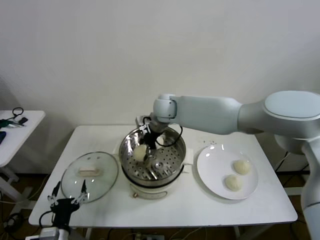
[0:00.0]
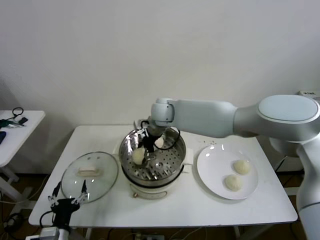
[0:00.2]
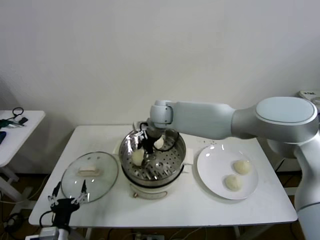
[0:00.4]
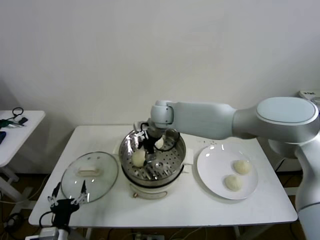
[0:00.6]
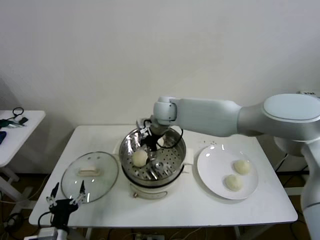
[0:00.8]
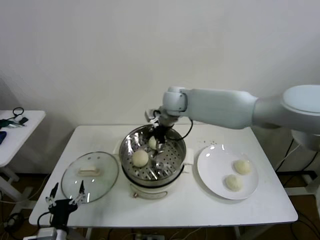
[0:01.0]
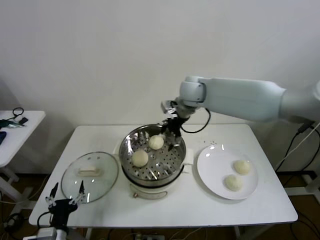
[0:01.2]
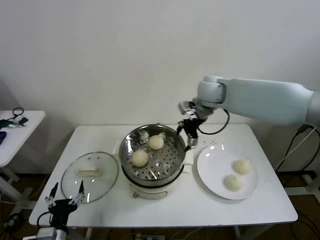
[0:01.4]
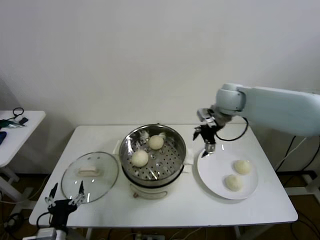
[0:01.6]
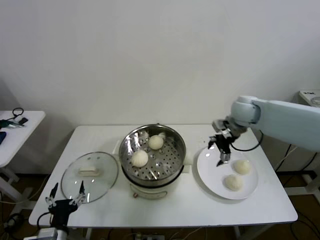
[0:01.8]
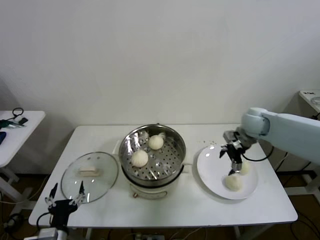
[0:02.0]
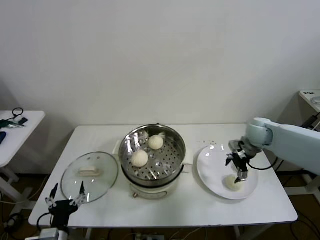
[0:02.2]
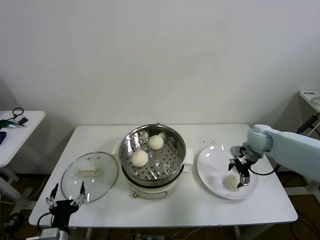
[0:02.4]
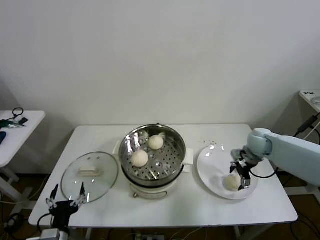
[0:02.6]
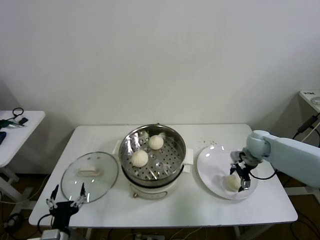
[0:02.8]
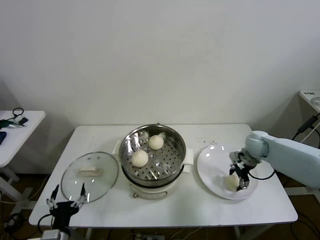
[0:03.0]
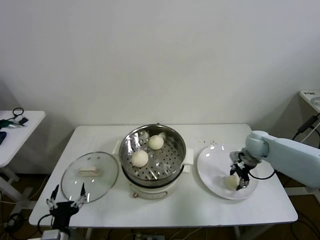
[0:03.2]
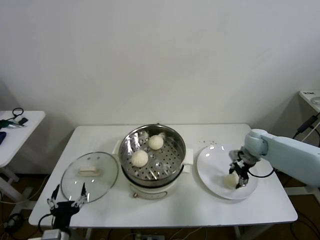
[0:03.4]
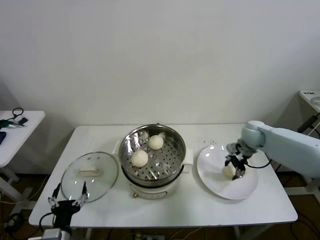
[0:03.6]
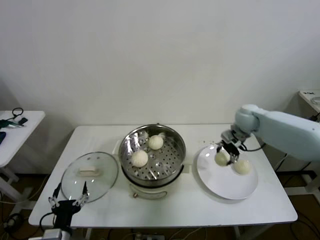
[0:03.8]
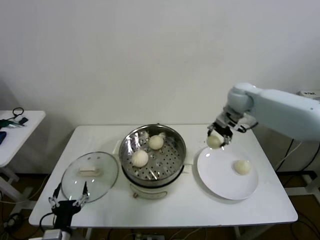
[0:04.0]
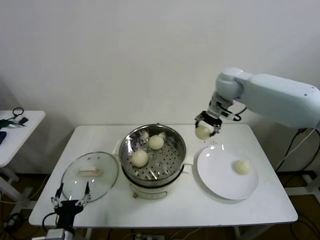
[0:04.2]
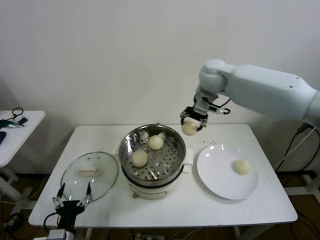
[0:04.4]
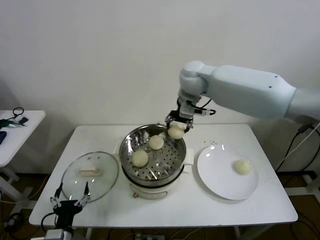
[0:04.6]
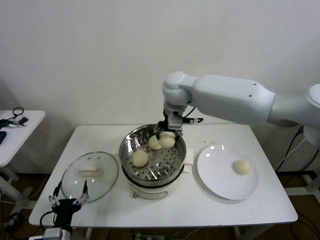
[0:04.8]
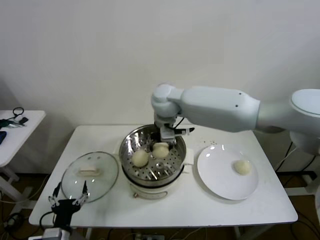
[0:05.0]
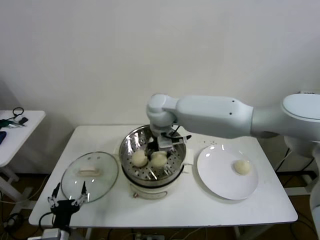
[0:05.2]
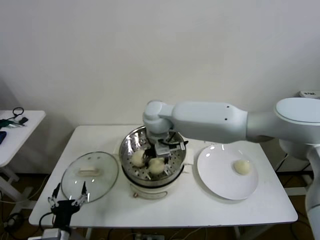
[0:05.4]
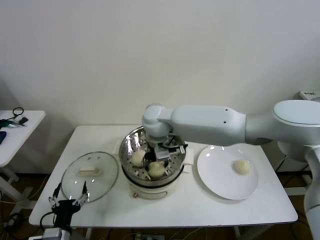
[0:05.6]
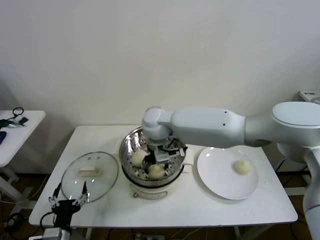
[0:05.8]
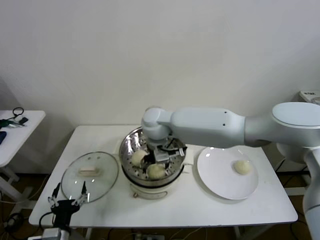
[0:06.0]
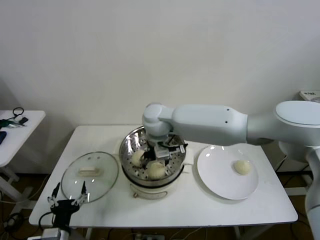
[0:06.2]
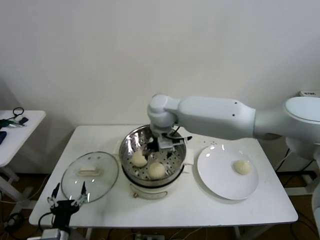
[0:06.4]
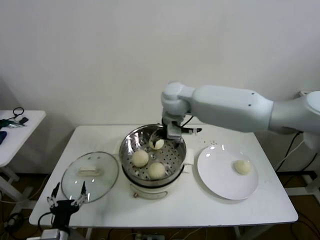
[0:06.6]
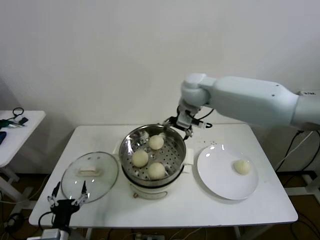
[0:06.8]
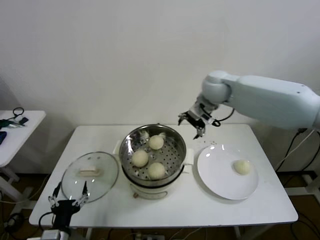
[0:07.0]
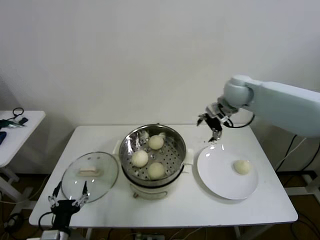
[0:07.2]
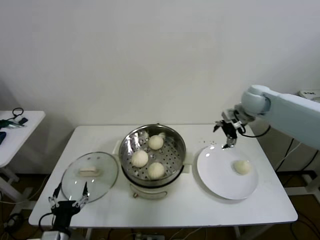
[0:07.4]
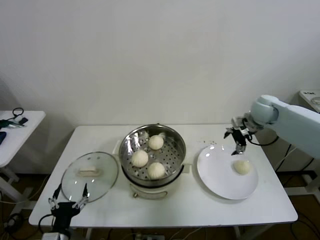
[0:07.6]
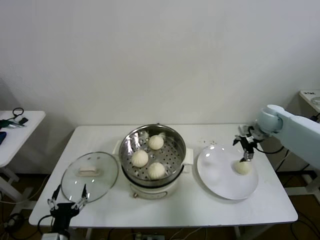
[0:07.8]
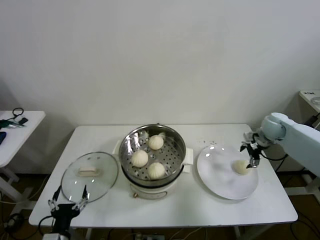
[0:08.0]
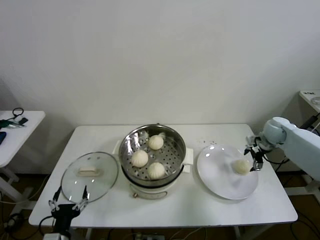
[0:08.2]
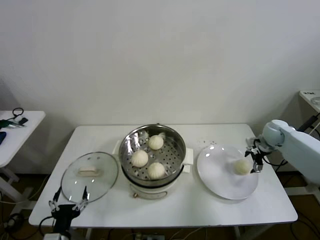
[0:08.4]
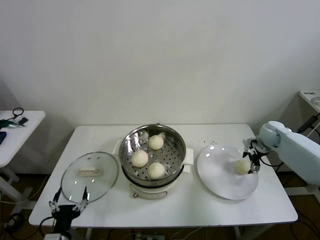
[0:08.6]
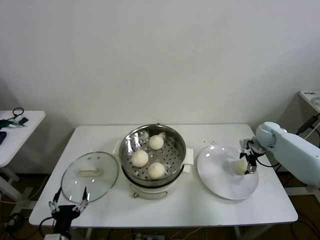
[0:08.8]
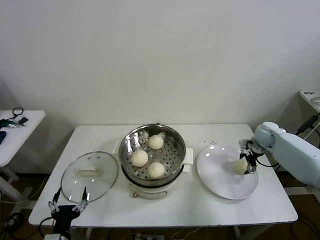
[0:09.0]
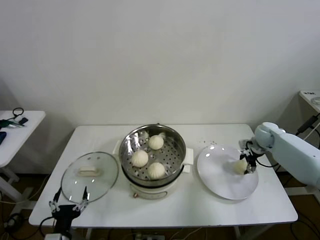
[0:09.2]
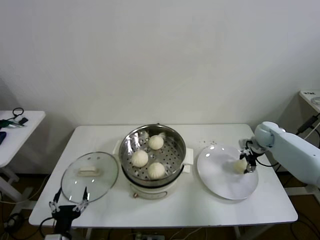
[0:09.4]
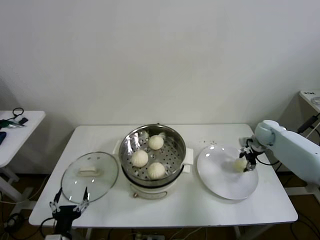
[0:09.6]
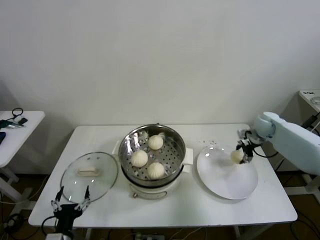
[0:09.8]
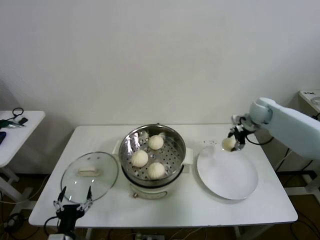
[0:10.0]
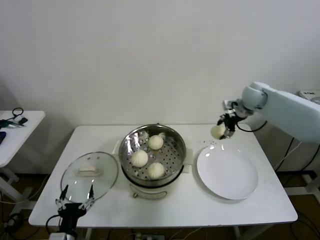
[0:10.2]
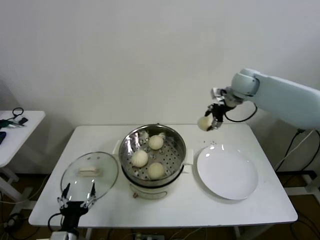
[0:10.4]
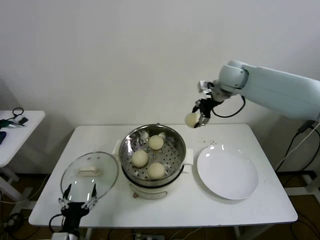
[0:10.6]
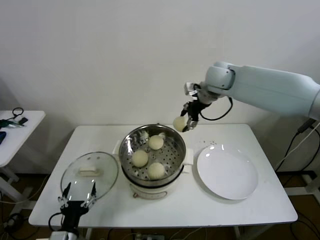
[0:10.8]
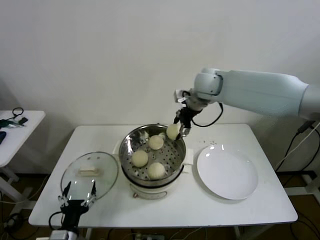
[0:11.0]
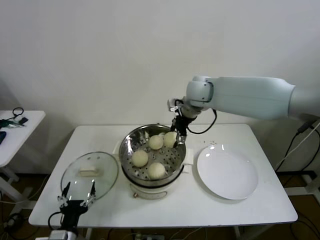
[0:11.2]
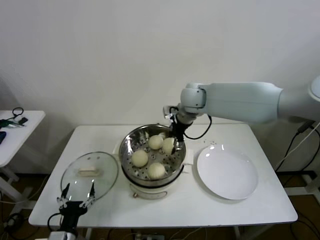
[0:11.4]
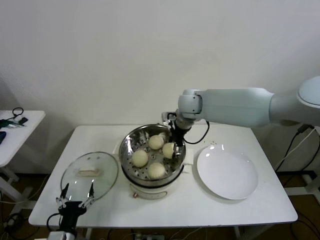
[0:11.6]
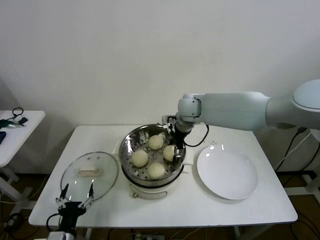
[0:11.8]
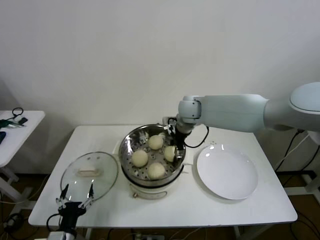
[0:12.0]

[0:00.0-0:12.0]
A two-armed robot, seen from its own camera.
Step, 0:00.8 to 0:03.2: Grasp the baozi in the plate with right gripper.
Step, 0:03.4 to 0:05.8: Place the baozi on the steamer with right gripper.
Step, 0:06.0 to 0:09.2: Grasp the baozi in the plate with right gripper.
0:00.0 to 0:01.6: The right gripper heads to the right, covering approximately 25 cm, and opens up.
0:01.6 to 0:03.0: The right gripper goes approximately 20 cm downward and to the right, and closes its fingers.
0:03.0 to 0:04.4: The right gripper heads upward and to the left, covering about 35 cm.
0:04.4 to 0:06.0: The right gripper goes about 20 cm to the left, downward and backward, and opens up.
0:06.0 to 0:07.6: The right gripper goes approximately 40 cm to the right.
0:07.6 to 0:09.0: The right gripper goes some 15 cm downward and to the right.
0:09.0 to 0:10.4: The right gripper moves upward and to the left, about 25 cm, and closes up.
0:10.4 to 0:12.0: The right gripper goes about 20 cm to the left and downward.

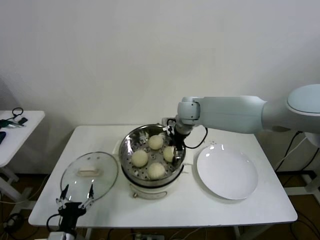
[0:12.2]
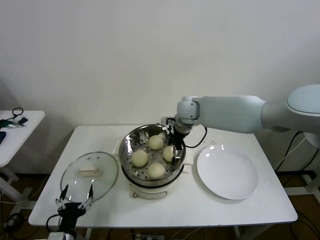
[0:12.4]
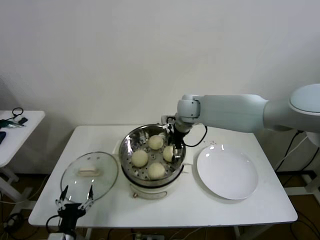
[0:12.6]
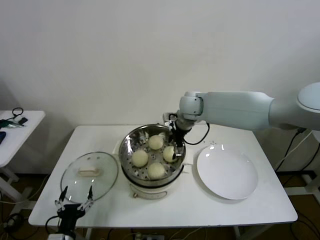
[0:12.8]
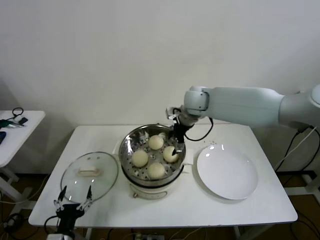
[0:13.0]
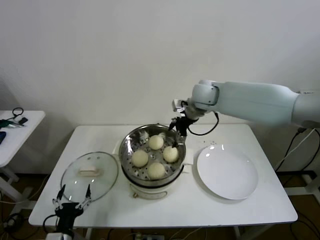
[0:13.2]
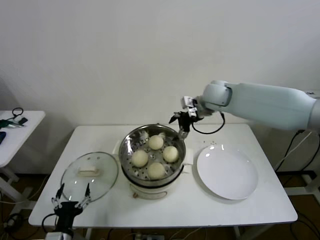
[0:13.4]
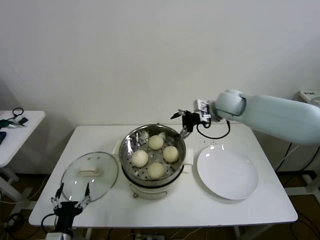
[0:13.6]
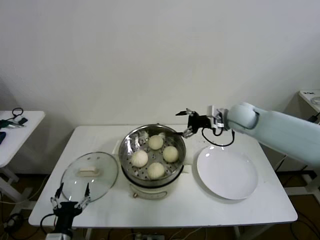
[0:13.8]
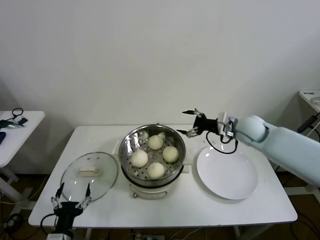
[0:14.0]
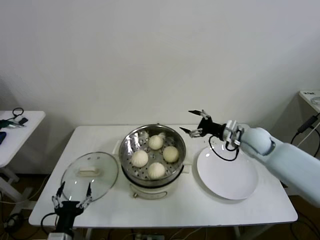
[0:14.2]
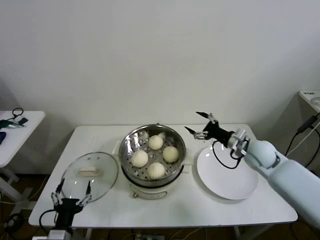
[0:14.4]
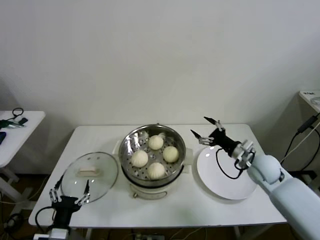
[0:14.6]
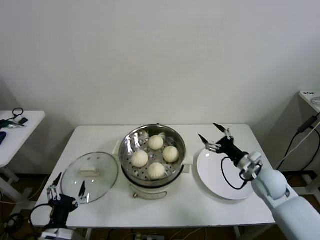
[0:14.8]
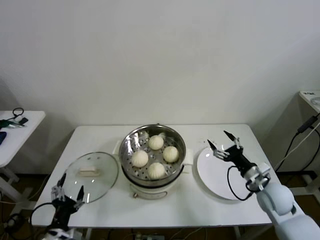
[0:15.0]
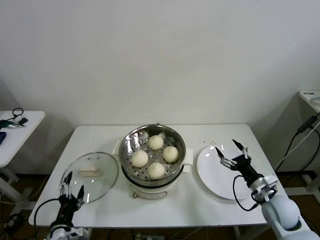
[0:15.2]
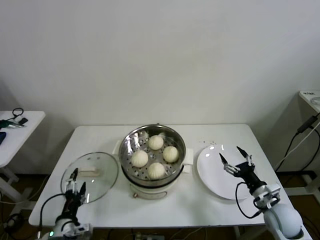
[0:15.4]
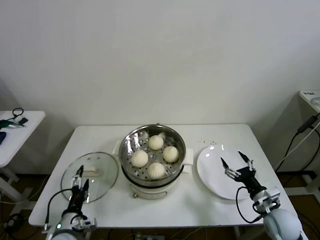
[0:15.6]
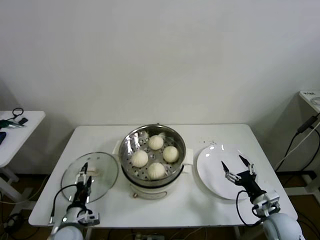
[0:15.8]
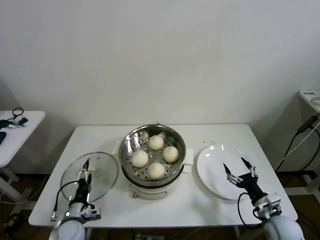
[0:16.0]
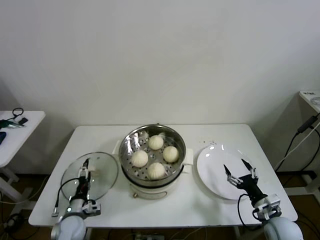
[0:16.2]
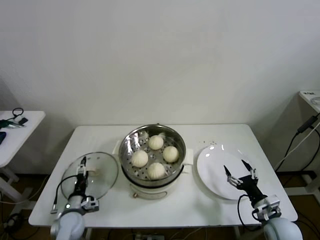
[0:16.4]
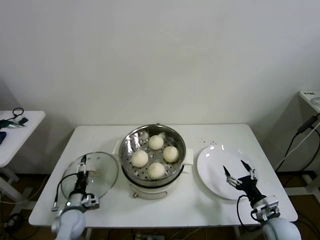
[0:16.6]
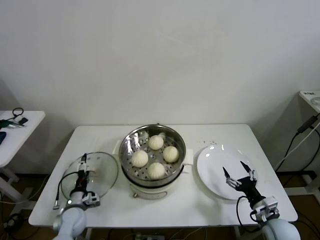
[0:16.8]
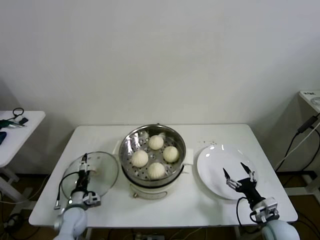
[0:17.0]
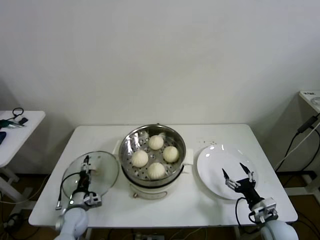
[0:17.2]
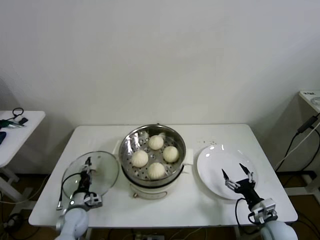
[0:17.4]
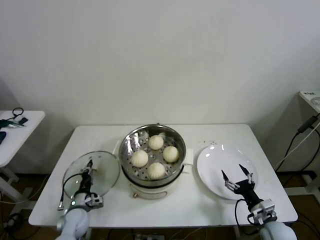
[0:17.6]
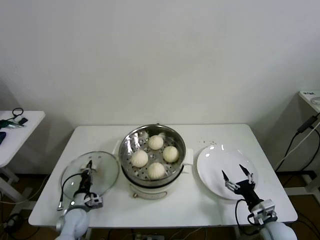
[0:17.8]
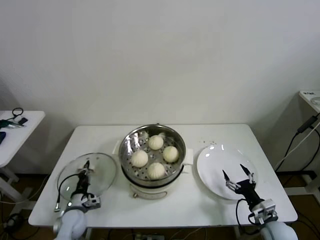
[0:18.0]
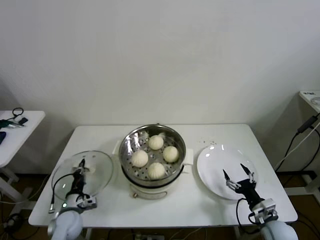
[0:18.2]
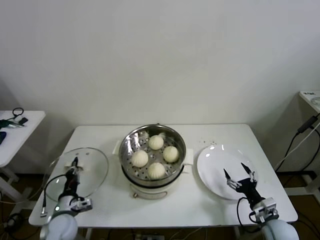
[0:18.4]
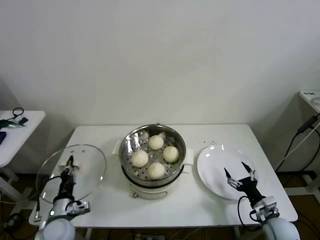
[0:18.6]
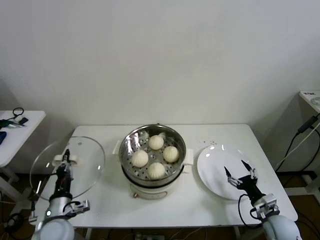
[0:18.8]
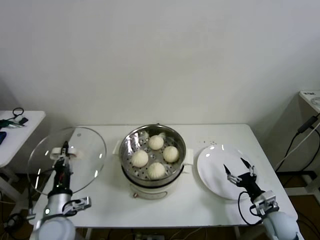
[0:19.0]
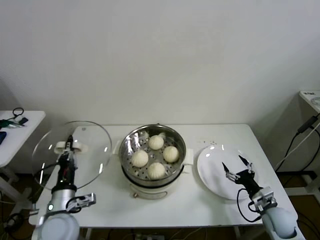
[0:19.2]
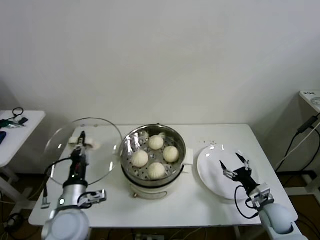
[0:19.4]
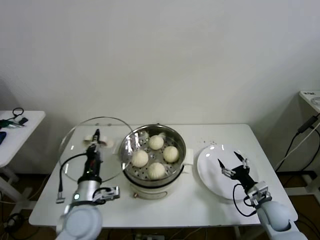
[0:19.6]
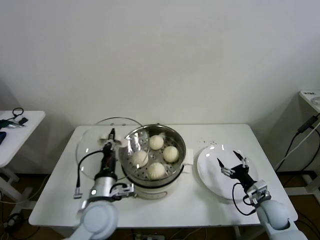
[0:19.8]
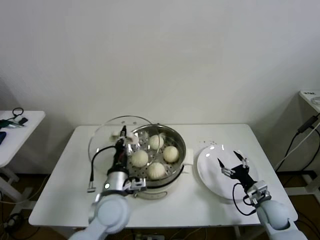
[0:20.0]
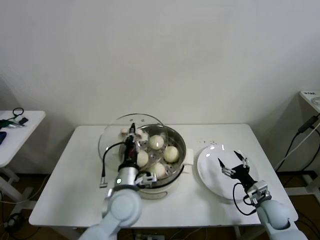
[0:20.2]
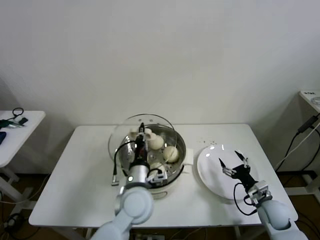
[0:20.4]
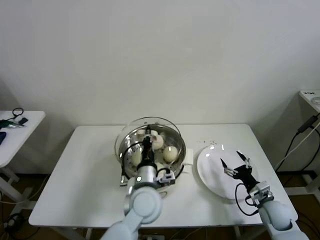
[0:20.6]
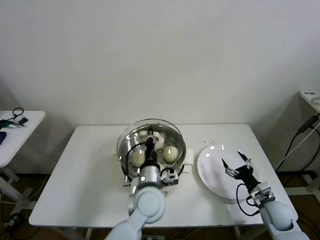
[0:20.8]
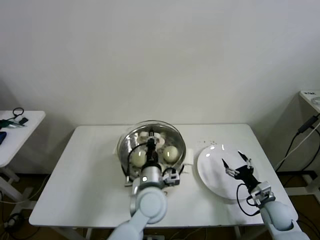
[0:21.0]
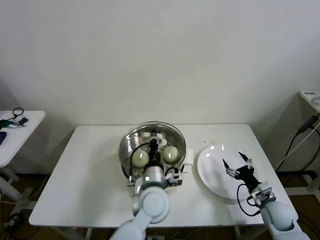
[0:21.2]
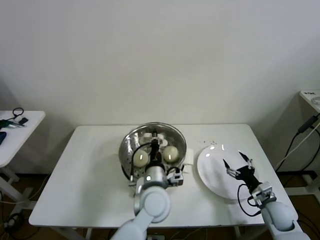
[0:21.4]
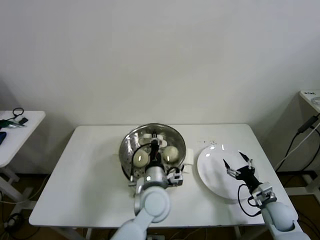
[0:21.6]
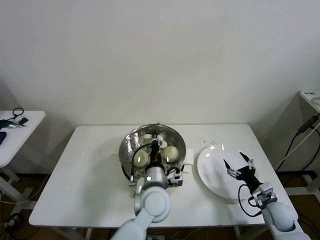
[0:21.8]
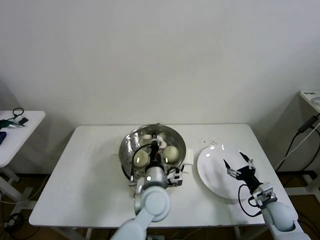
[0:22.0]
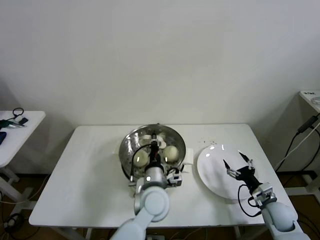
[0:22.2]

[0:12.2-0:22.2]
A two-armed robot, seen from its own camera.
Step, 0:12.8 to 0:17.6: Grasp the pot lid with left gripper.
0:12.2 to 0:13.6: The right gripper moves to the right, about 15 cm, and opens.
0:13.6 to 0:15.0: The right gripper heads backward, downward and to the right, covering roughly 30 cm.
0:15.0 to 0:16.4: The left gripper goes roughly 20 cm forward and downward. Meanwhile the right gripper heads backward and downward, covering roughly 10 cm.
0:16.4 to 0:18.0: The left gripper closes up.
0:18.0 to 0:19.4: The left gripper shifts approximately 20 cm upward and to the right, while the right gripper shifts about 5 cm forward.
0:19.4 to 0:20.8: The left gripper heads to the right, covering approximately 20 cm.
0:20.8 to 0:22.2: There are only small adjustments of the grippers.
